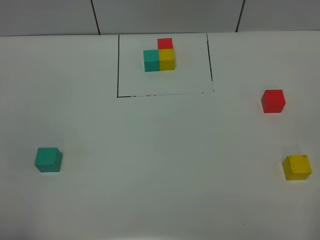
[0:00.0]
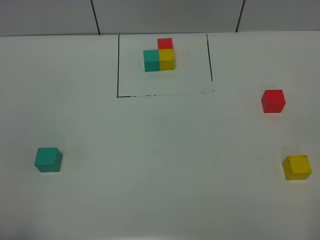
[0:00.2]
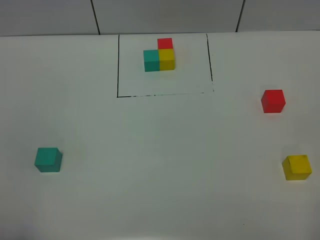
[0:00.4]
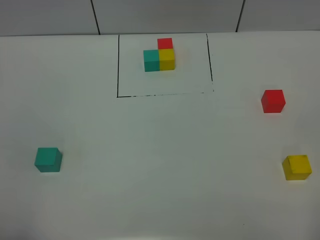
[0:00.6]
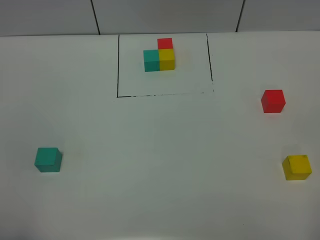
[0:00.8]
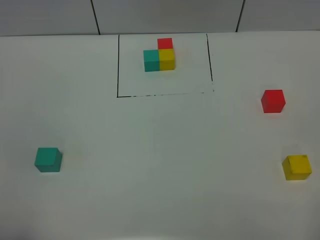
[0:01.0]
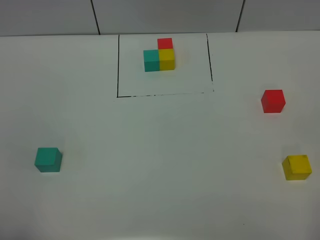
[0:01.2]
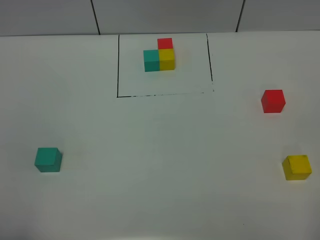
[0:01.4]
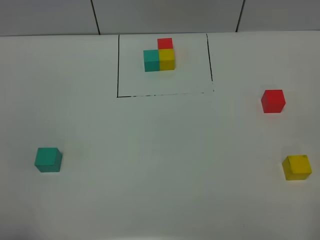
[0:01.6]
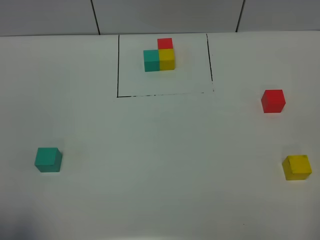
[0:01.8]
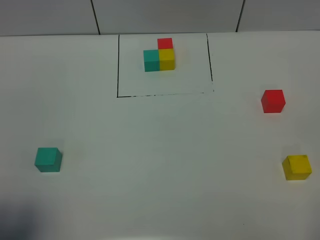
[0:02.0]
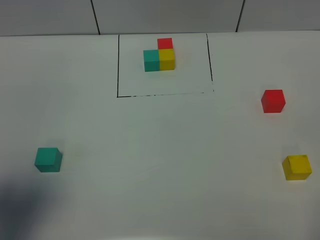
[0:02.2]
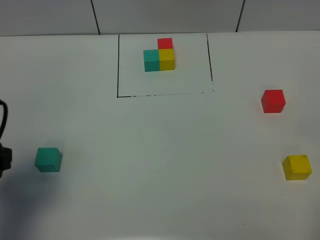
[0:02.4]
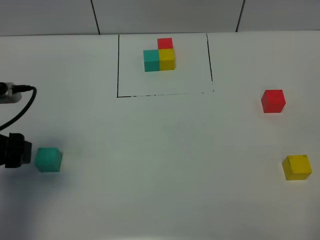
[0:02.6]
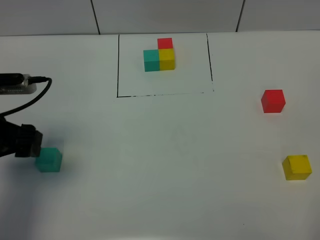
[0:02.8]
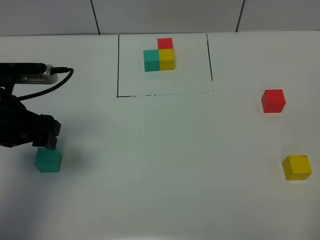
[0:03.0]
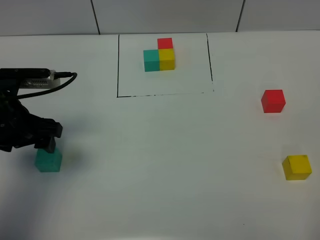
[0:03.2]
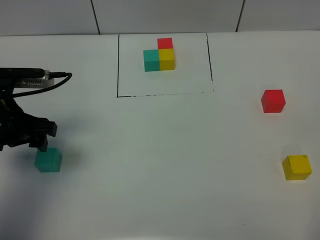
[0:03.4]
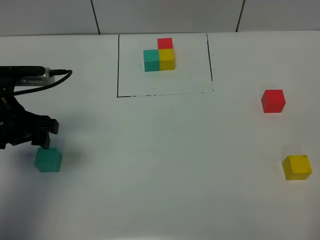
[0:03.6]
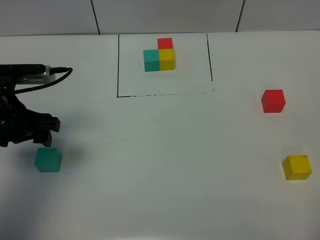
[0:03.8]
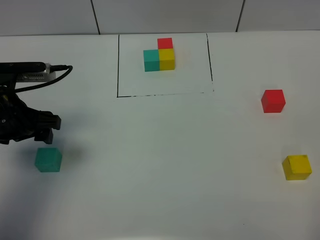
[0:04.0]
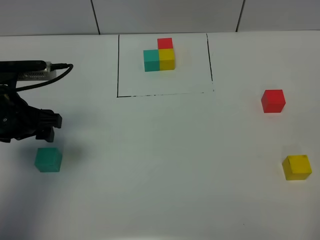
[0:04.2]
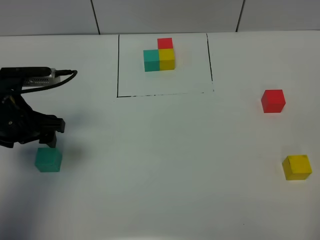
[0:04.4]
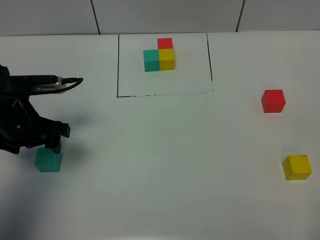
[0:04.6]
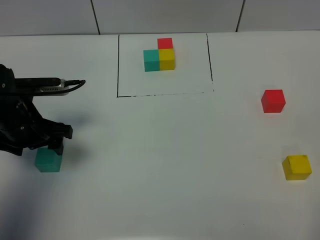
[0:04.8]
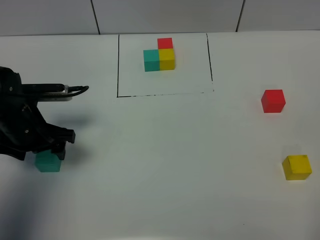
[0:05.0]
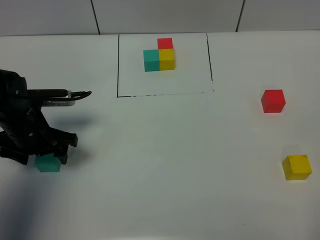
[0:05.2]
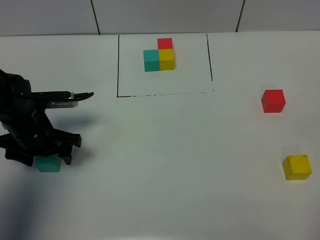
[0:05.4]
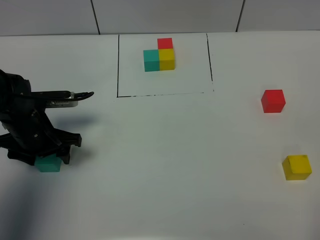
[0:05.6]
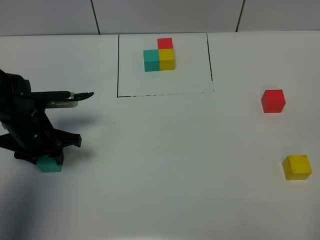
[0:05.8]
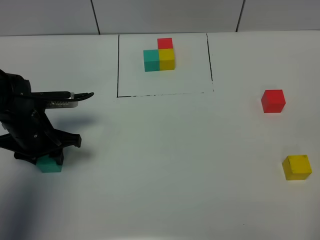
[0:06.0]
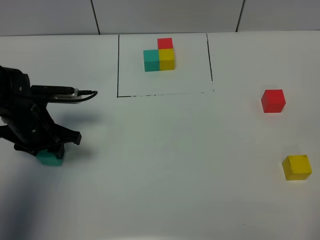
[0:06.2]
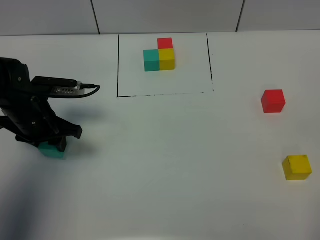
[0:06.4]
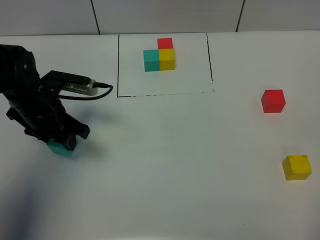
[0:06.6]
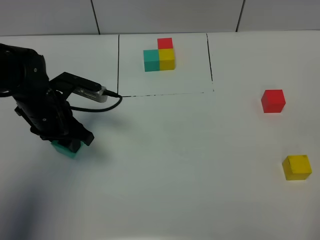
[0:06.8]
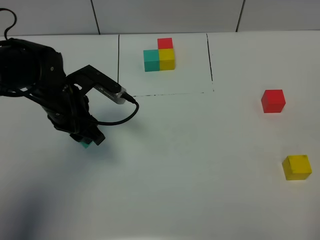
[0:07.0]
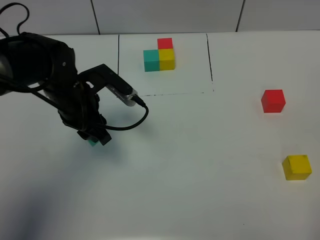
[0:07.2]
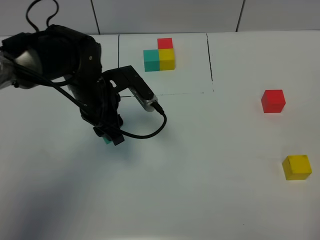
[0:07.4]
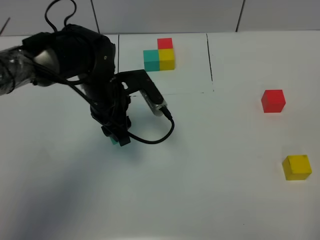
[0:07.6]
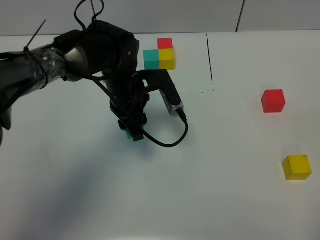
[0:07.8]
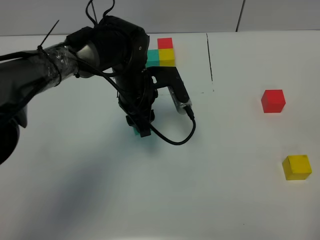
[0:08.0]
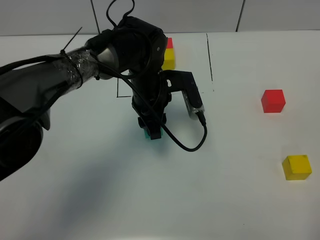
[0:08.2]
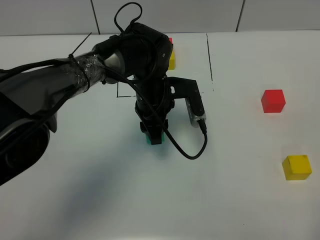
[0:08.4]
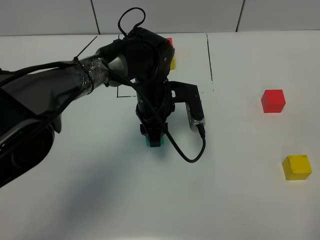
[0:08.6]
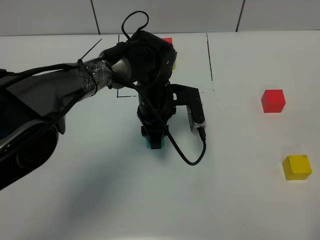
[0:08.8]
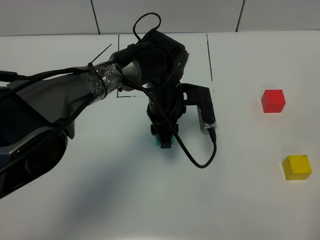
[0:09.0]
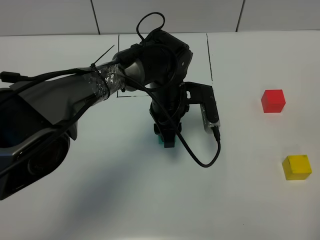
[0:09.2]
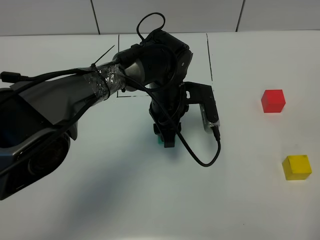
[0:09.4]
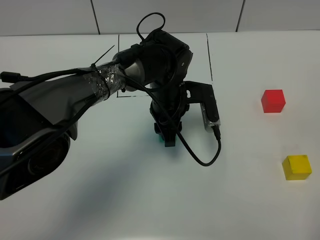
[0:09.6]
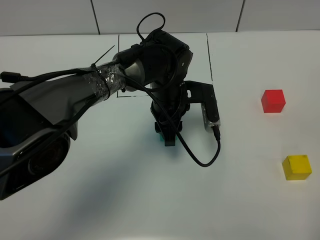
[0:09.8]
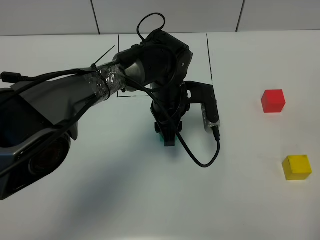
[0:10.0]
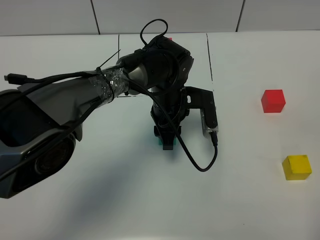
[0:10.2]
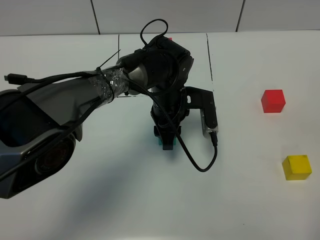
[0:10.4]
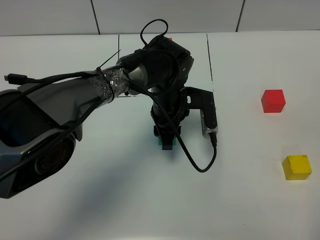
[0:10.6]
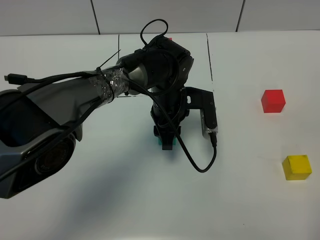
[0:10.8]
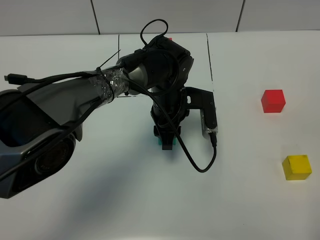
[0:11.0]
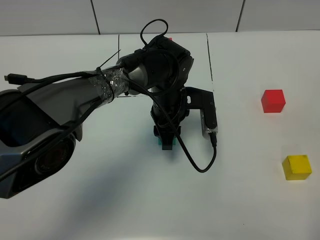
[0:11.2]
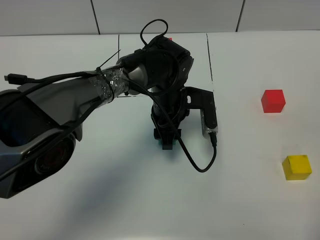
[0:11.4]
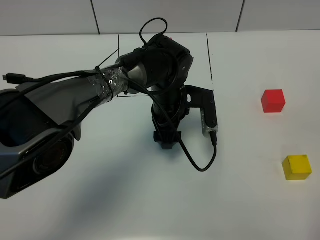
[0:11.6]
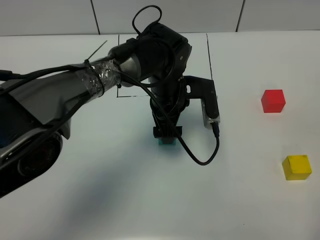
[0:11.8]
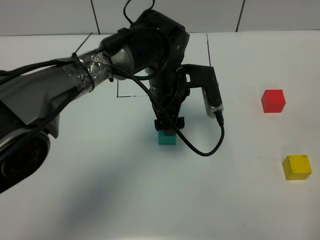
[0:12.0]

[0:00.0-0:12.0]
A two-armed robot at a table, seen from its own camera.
Task of the whole recording: According to the building block template in front, assemble the scattered blocks together.
Step, 0:00.0 to 0:11.4: Put the green build block in the center of the table.
0:00.0 to 0:01.6: Both grippers stay about where they are.
0:01.6 to 0:03.0: The left gripper shifts approximately 25 cm forward.
0:03.0 to 0:04.4: The grippers make only small movements.
0:04.4 to 0:06.0: The left gripper is displaced downward by some 5 cm, and closes its fingers.
0:06.0 to 0:07.6: The left gripper is displaced to the right by roughly 15 cm.
0:07.6 to 0:09.0: The left gripper shifts roughly 10 cm to the right.
0:09.0 to 0:10.4: The two grippers keep their place.
0:10.4 to 0:12.0: The left gripper shifts about 5 cm upward, and opens up.

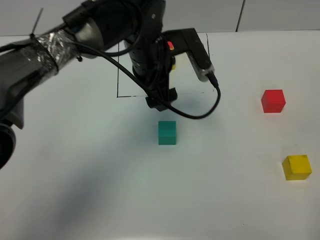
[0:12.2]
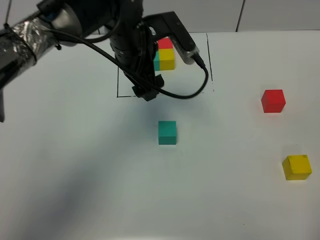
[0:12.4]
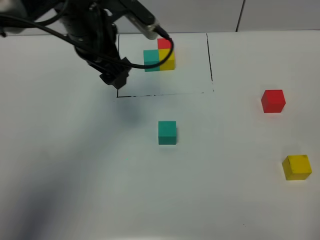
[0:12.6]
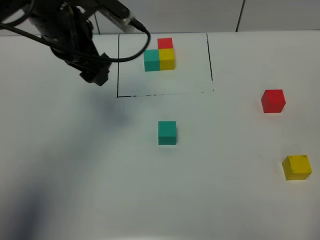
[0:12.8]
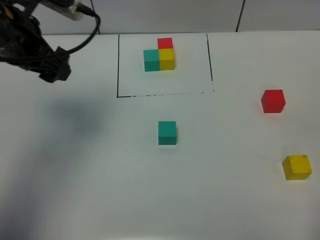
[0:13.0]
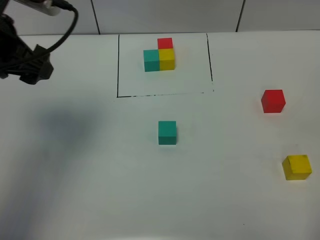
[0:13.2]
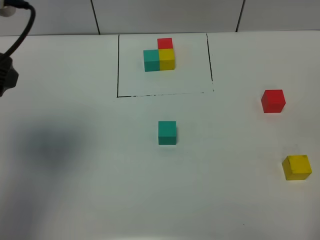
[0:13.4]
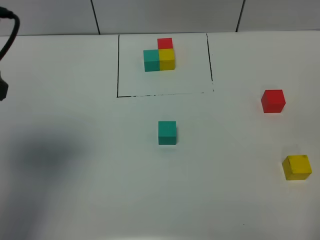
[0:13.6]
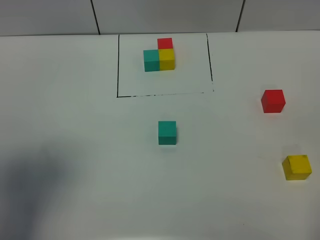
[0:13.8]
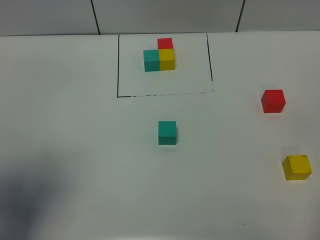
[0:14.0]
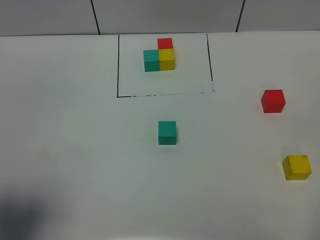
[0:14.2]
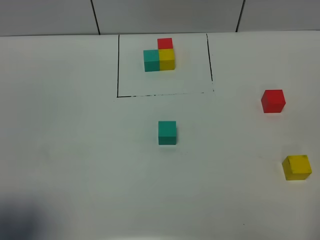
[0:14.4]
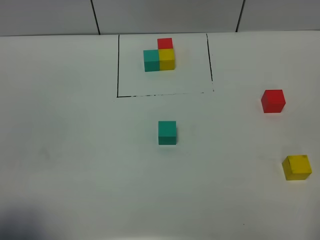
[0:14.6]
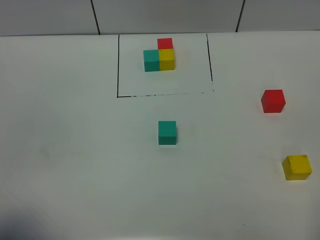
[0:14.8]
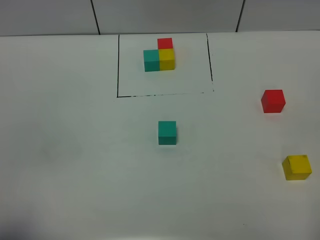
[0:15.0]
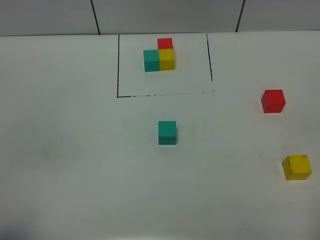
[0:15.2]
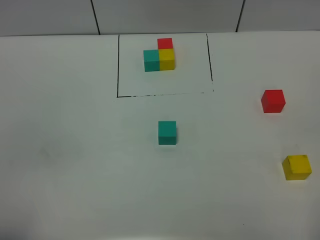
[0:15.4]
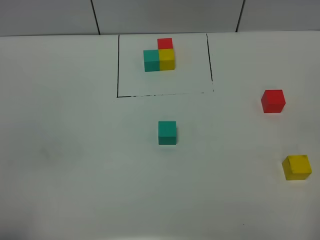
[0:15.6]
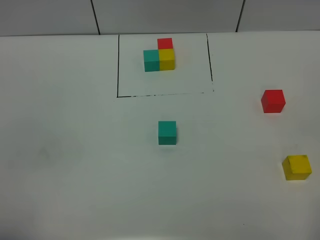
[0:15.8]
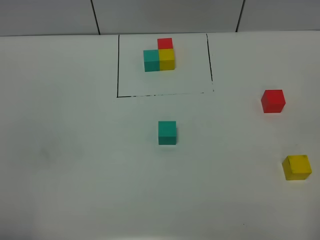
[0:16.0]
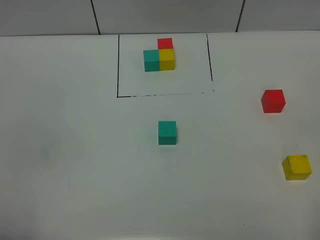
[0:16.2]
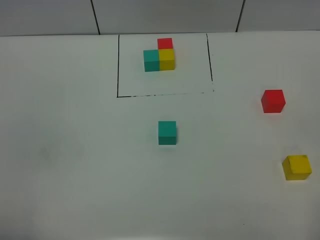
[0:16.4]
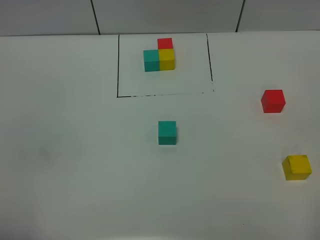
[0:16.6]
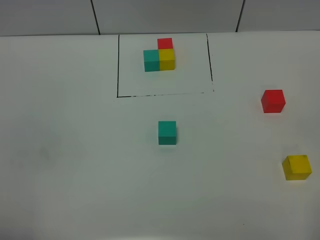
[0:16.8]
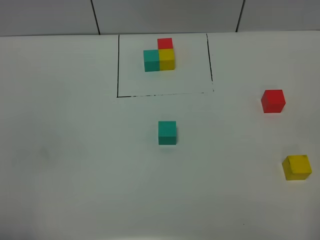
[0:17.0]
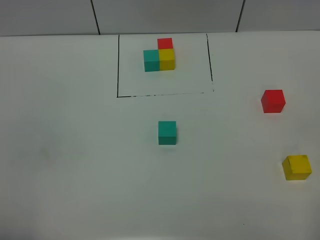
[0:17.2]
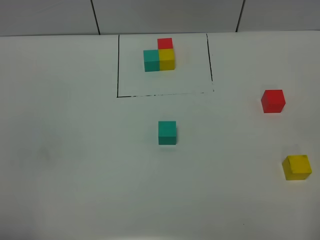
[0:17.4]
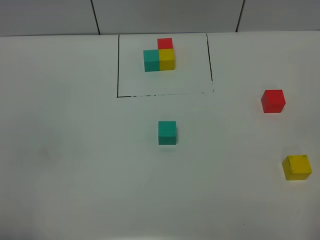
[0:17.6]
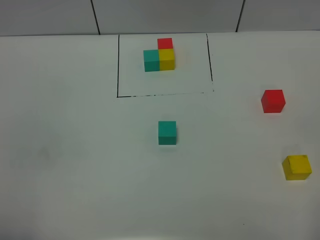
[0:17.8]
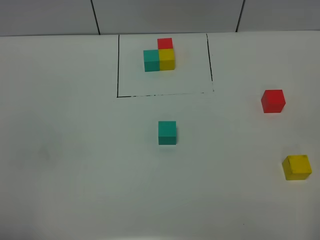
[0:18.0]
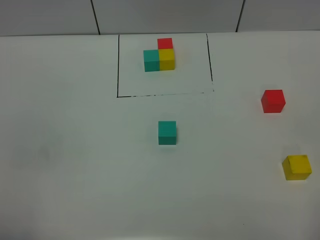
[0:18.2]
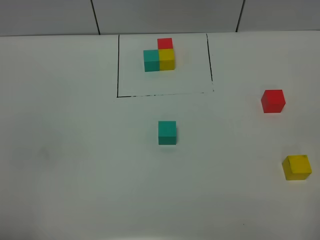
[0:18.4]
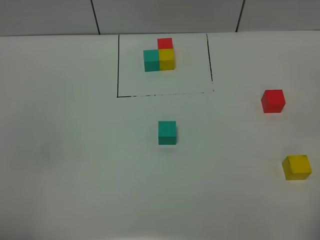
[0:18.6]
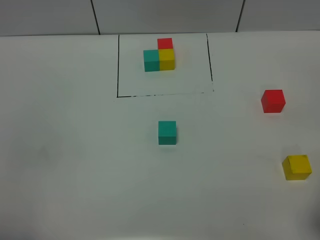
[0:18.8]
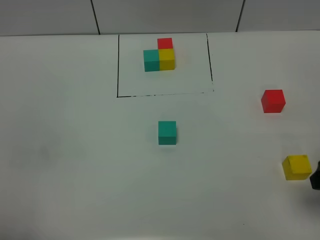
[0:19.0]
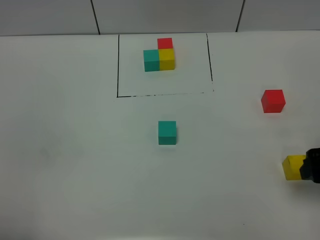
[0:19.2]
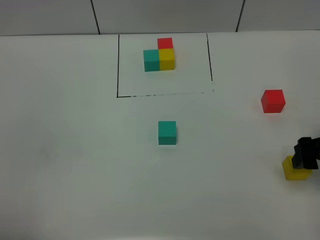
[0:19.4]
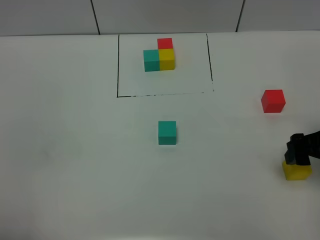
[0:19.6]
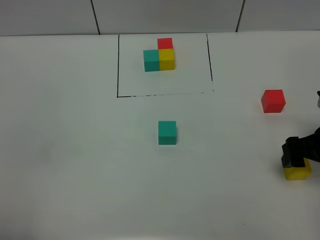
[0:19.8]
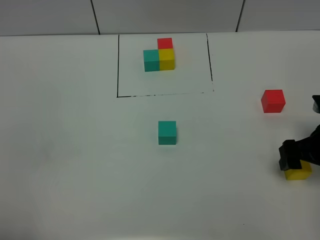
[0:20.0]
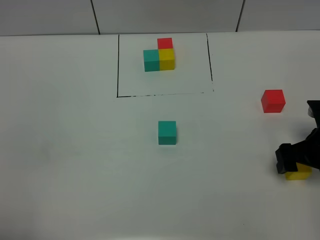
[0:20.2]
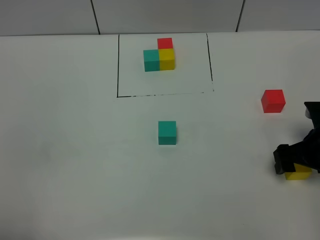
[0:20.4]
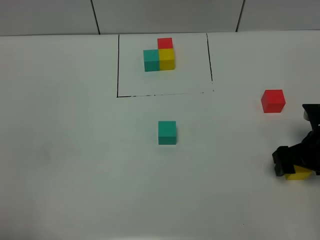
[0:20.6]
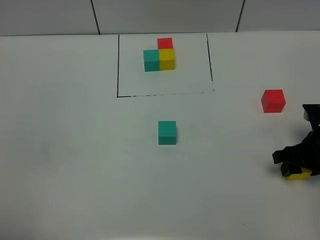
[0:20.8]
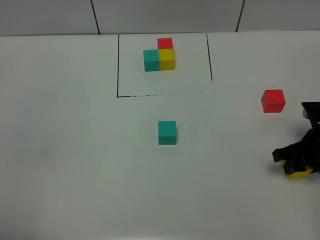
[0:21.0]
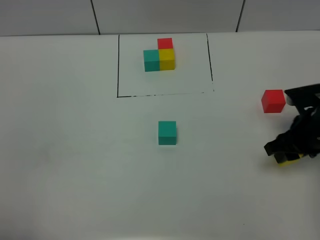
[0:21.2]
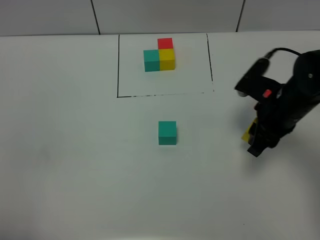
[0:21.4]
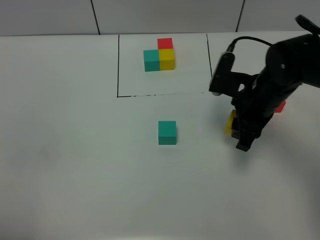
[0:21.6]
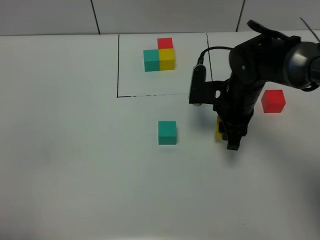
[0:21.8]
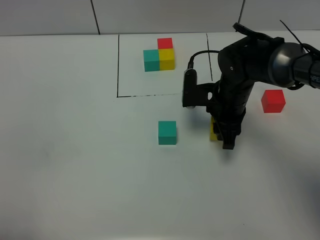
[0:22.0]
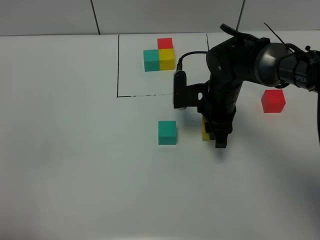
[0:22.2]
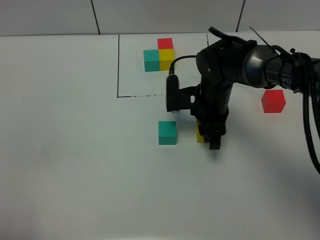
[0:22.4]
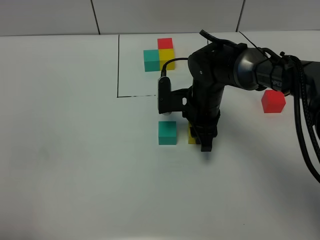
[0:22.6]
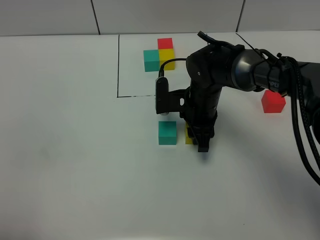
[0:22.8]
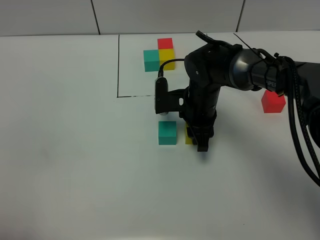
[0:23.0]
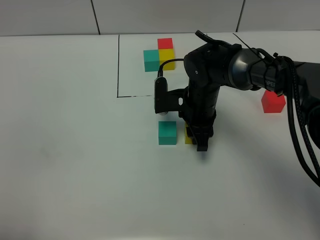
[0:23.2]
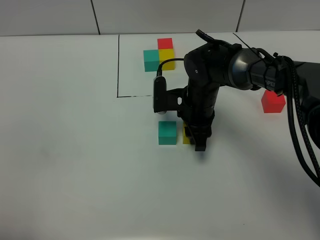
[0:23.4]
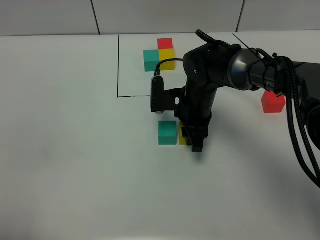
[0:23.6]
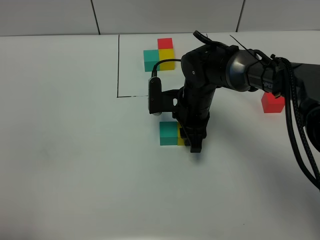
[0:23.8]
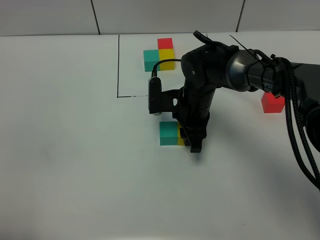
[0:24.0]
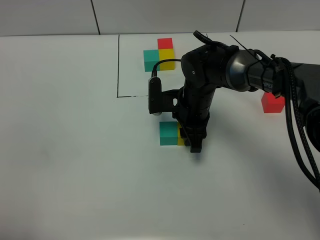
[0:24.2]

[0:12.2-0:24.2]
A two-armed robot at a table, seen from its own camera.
Task of the whole recording: According to the building block template in front, assemble the scattered blocks together.
0:12.2 to 0:13.8: The left gripper shifts some 35 cm to the left, backward and upward.
0:13.8 to 0:15.2: The left gripper is displaced backward and downward by about 15 cm.
0:16.6 to 0:18.2: Both grippers stay put.
0:18.2 to 0:19.8: The right gripper shifts approximately 25 cm forward and downward.
0:19.8 to 0:21.2: The right gripper changes place by roughly 5 cm, and closes.
0:21.2 to 0:22.6: The right gripper goes approximately 20 cm to the left.
0:22.6 to 0:24.2: The grippers stay close to where they were, moving slightly.
